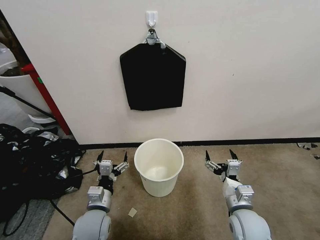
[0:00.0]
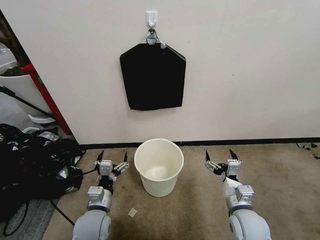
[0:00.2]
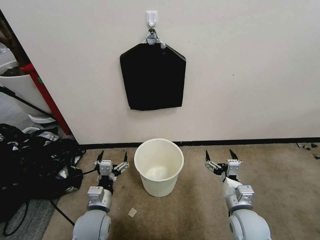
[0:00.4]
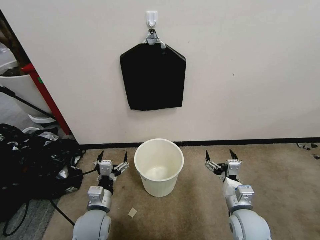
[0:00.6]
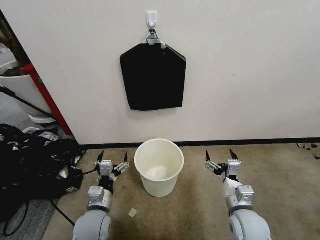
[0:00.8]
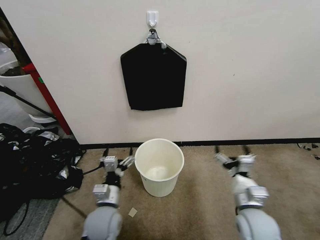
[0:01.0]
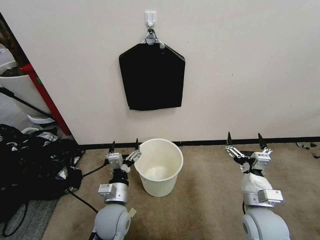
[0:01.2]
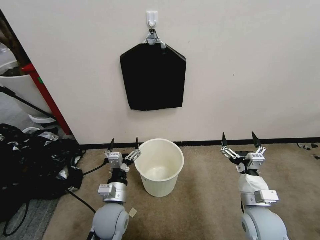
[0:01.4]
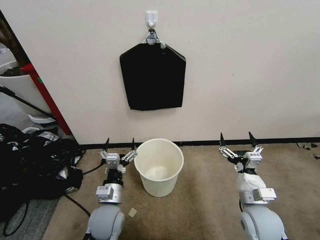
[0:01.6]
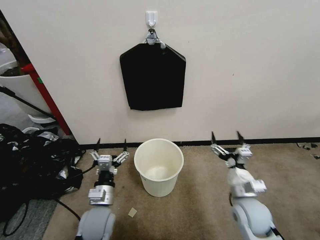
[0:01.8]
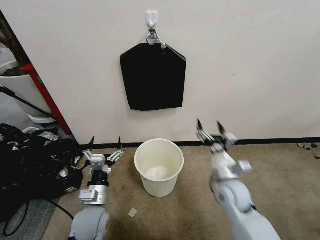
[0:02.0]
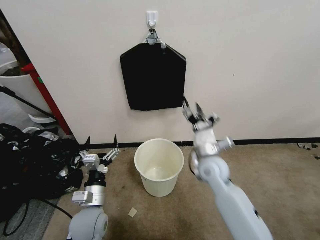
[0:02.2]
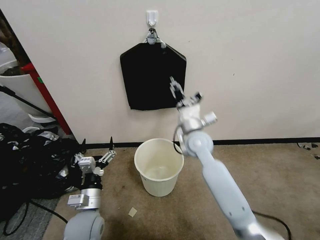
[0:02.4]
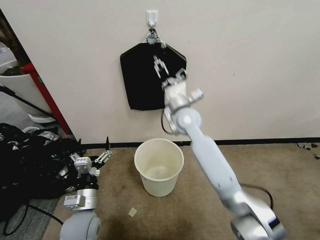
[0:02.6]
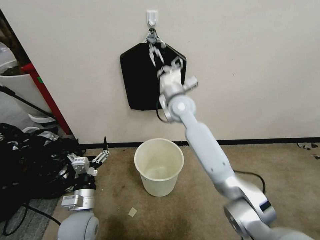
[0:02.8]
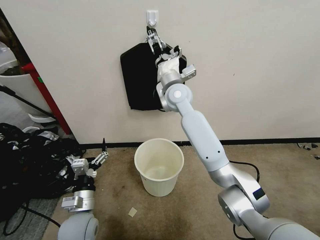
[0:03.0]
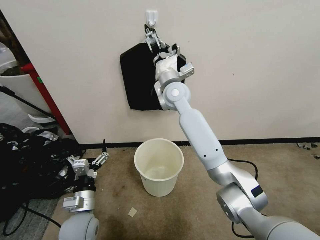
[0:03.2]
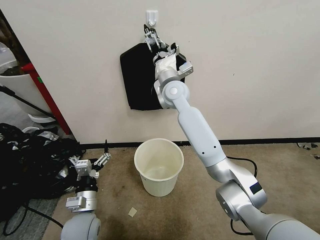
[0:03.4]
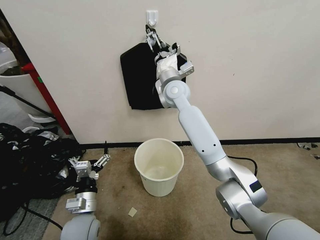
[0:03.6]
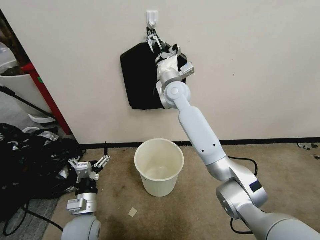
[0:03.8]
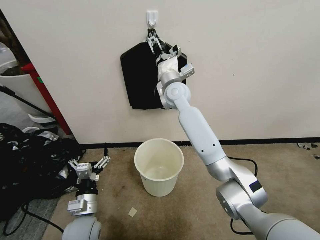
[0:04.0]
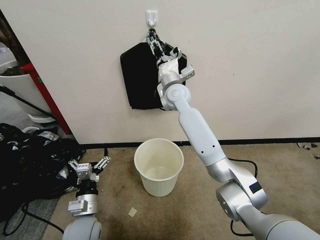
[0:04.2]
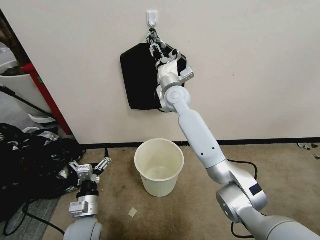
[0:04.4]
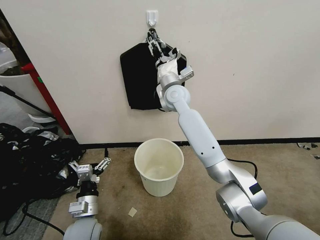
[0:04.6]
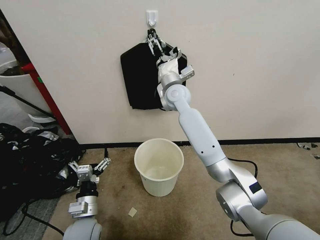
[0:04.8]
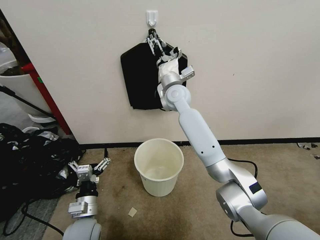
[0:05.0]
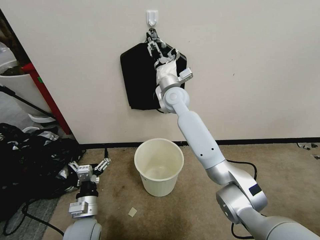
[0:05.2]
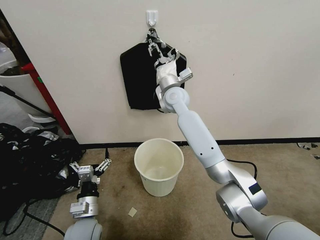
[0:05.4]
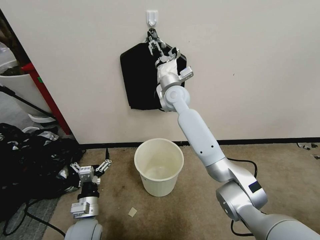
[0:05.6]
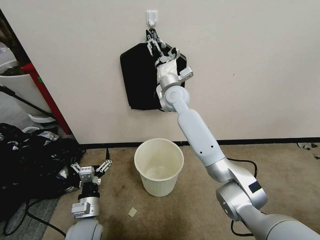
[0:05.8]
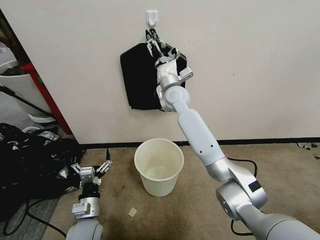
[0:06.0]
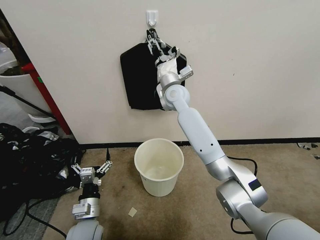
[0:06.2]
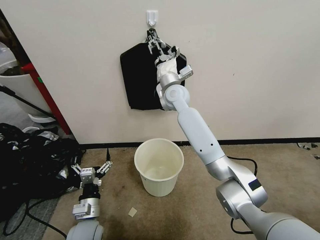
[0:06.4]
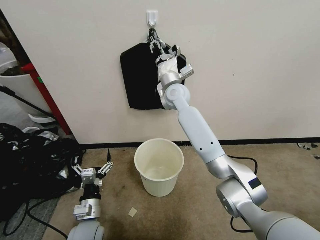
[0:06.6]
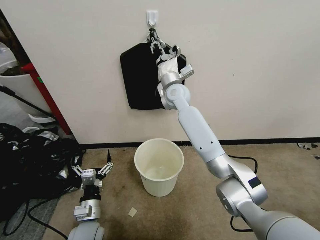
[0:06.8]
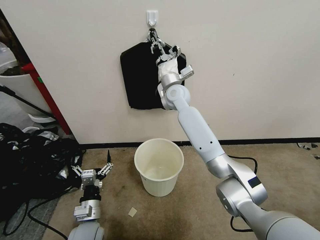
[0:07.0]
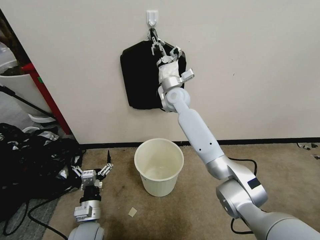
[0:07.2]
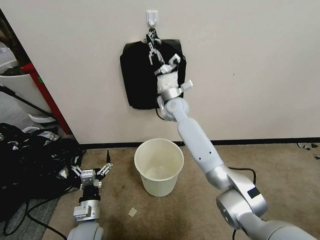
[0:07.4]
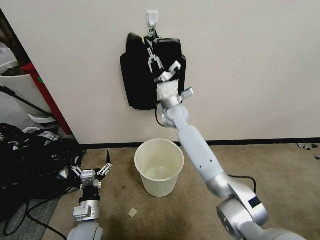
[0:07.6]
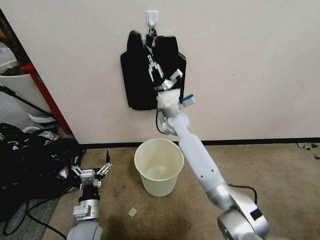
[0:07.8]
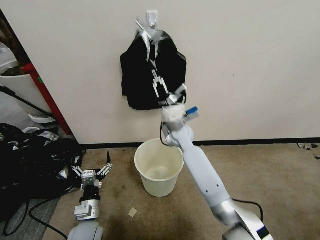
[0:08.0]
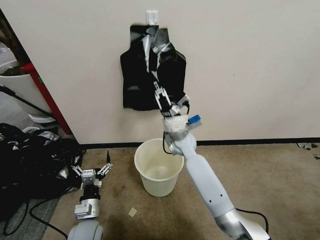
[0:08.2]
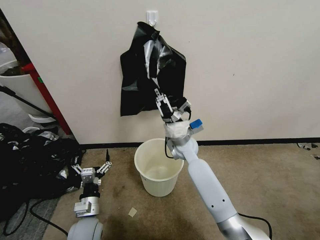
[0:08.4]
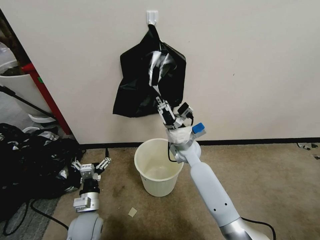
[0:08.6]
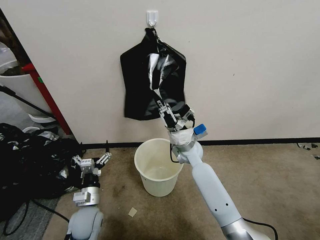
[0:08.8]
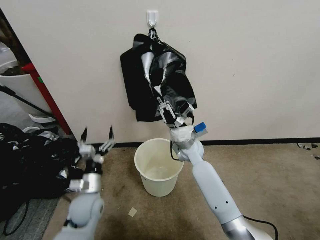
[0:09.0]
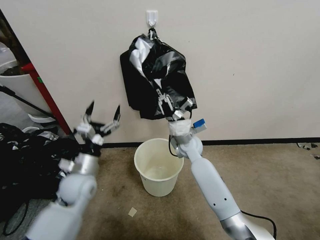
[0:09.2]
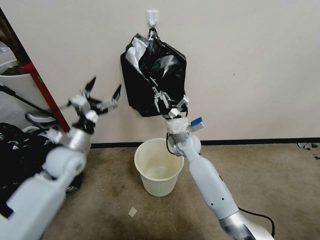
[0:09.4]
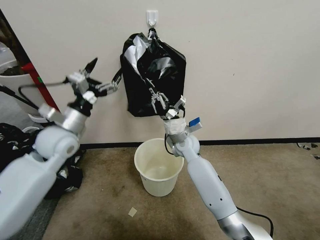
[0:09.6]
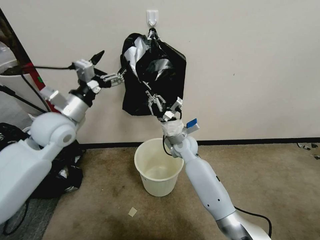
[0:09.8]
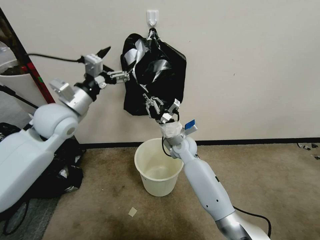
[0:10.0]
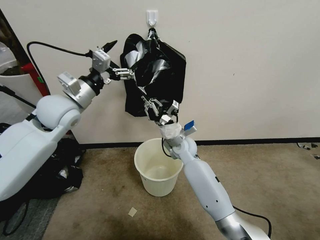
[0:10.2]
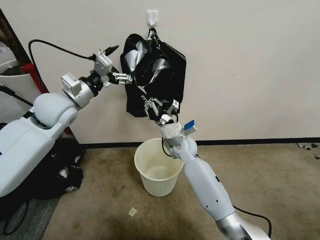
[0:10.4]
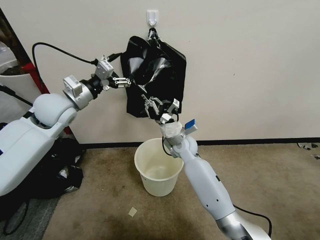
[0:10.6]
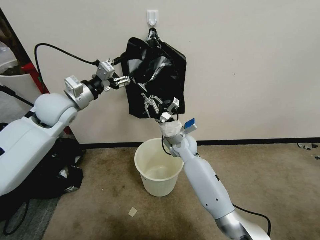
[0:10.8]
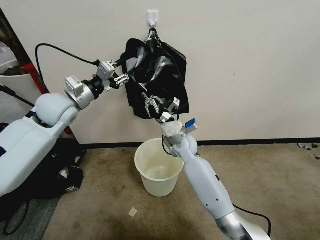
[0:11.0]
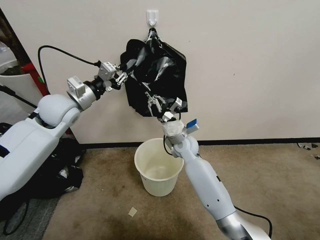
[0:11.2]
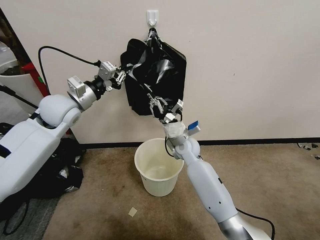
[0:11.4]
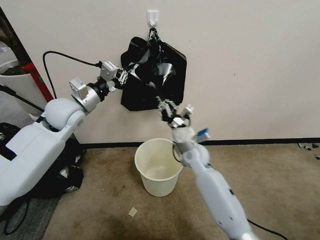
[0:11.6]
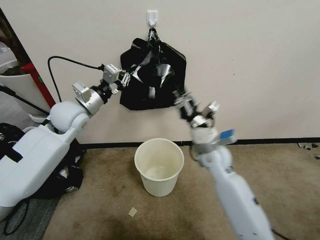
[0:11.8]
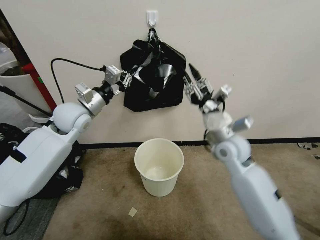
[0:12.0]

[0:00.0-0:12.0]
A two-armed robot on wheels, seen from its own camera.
Task of the whole recording: Place a trash bag onto the trash bin.
0:01.6 to 0:03.0: The left gripper moves to the left, about 5 cm. The right gripper is displaced forward, to the left and upward by approximately 40 cm.
0:03.0 to 0:04.4: The right gripper closes up.
0:04.4 to 0:06.0: The right gripper opens its fingers.
0:06.0 to 0:07.6: The right gripper shifts some 5 cm downward, and closes up.
0:07.6 to 0:09.0: The right gripper heads downward, backward and to the right, covering about 15 cm; the left gripper heads forward, covering roughly 5 cm.
0:09.0 to 0:10.4: The left gripper is displaced upward and forward by roughly 30 cm.
0:10.4 to 0:12.0: The left gripper changes place by about 5 cm, and closes. Meanwhile the right gripper moves to the right, upward and backward, some 20 cm, and opens up.

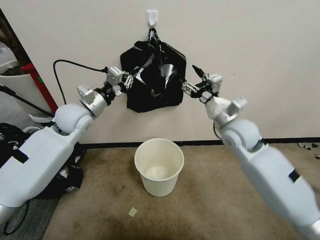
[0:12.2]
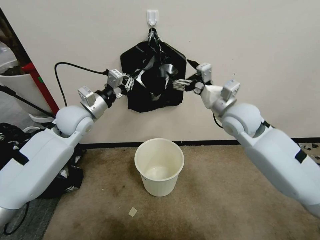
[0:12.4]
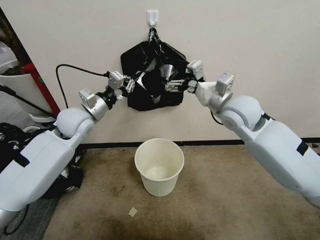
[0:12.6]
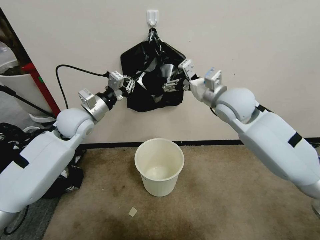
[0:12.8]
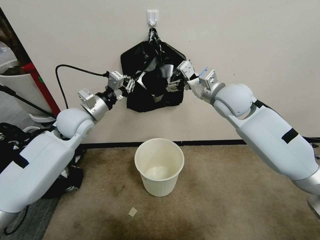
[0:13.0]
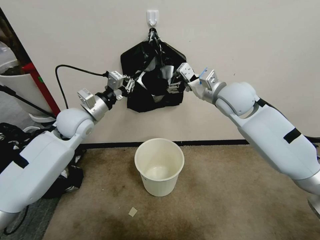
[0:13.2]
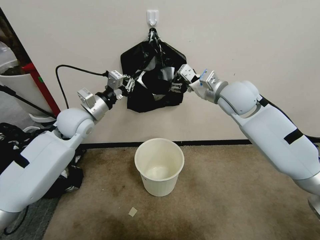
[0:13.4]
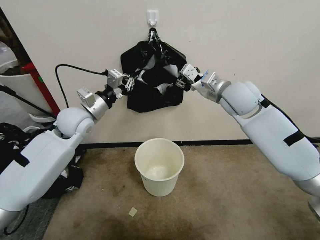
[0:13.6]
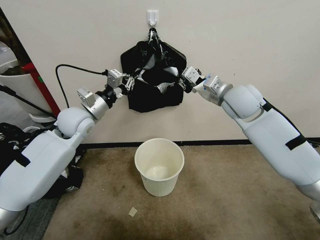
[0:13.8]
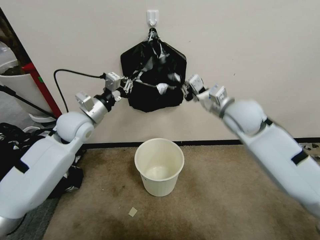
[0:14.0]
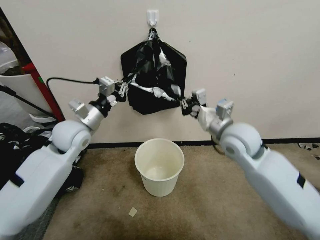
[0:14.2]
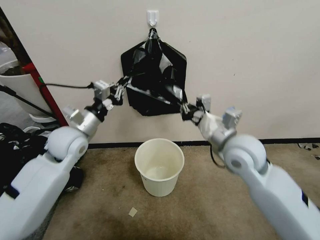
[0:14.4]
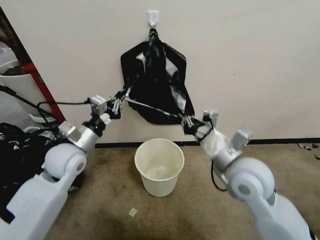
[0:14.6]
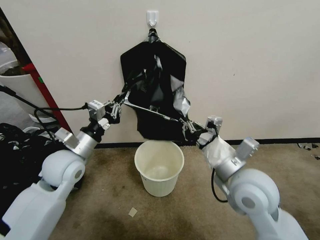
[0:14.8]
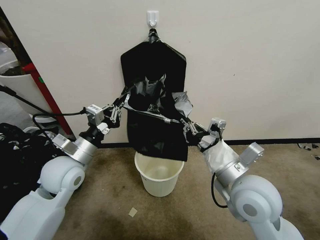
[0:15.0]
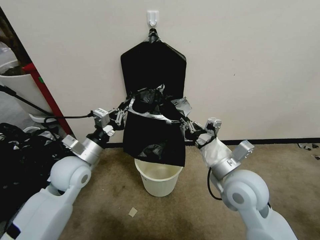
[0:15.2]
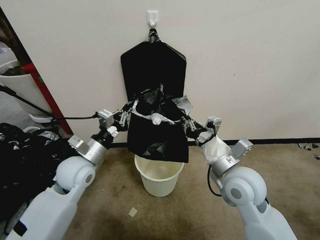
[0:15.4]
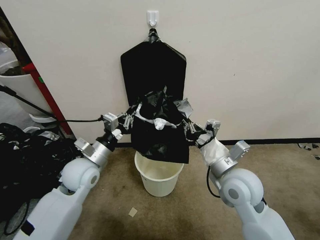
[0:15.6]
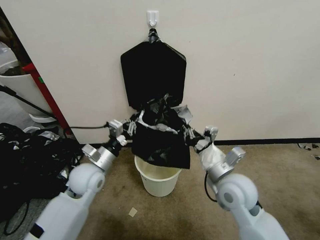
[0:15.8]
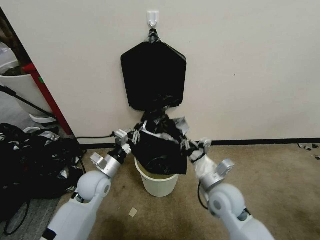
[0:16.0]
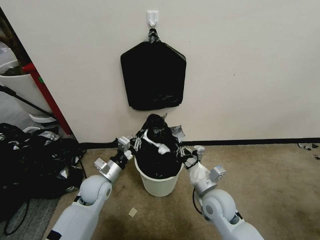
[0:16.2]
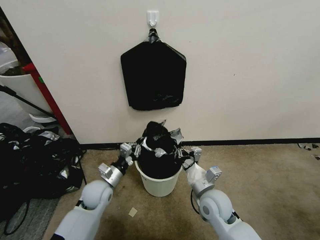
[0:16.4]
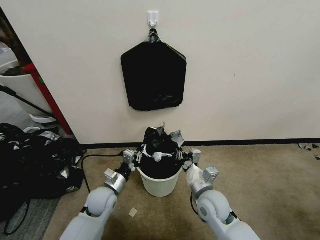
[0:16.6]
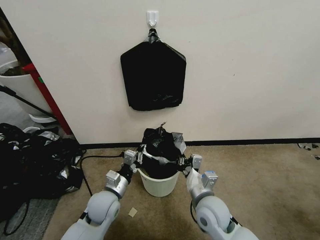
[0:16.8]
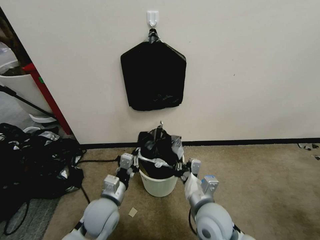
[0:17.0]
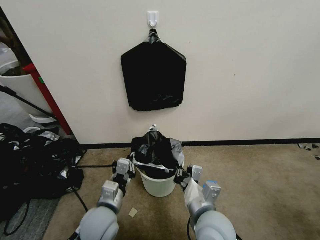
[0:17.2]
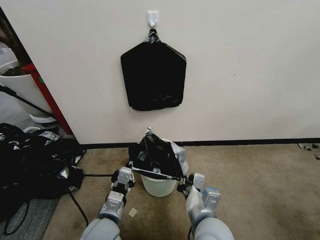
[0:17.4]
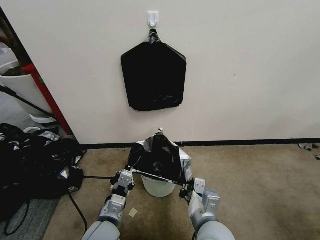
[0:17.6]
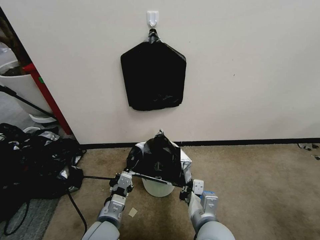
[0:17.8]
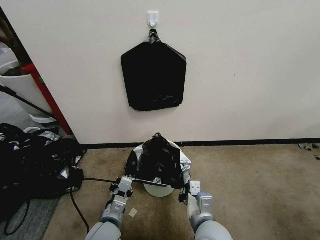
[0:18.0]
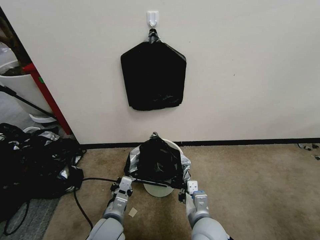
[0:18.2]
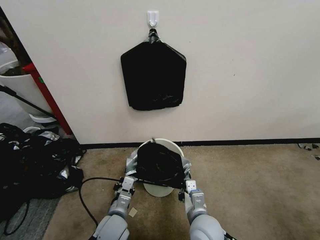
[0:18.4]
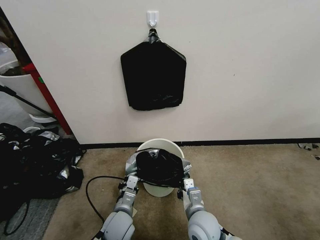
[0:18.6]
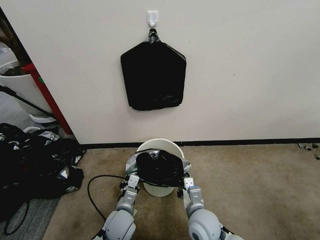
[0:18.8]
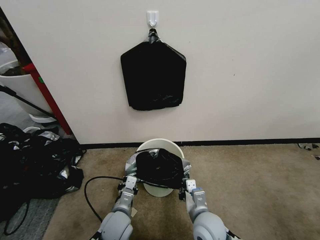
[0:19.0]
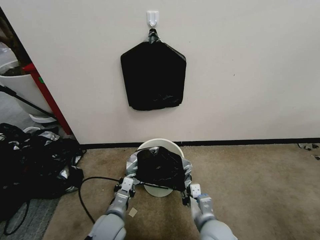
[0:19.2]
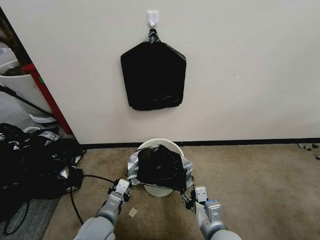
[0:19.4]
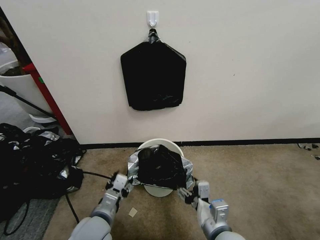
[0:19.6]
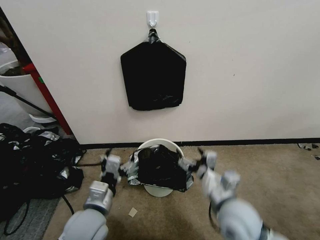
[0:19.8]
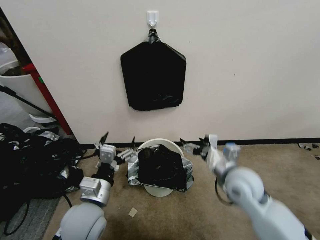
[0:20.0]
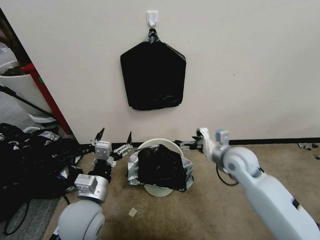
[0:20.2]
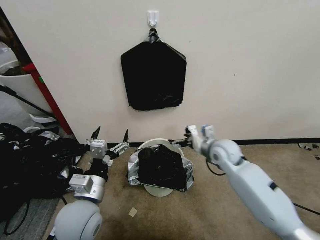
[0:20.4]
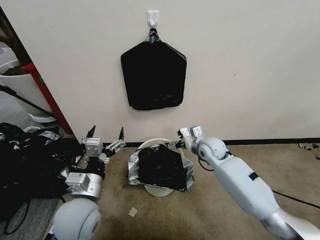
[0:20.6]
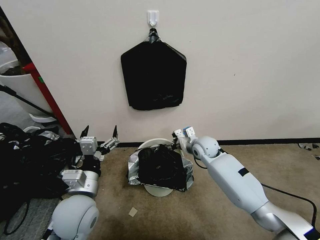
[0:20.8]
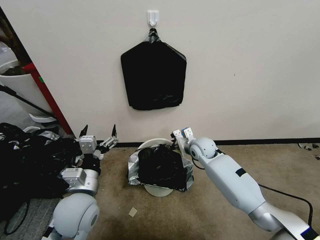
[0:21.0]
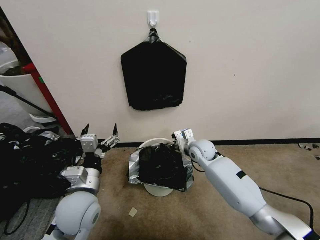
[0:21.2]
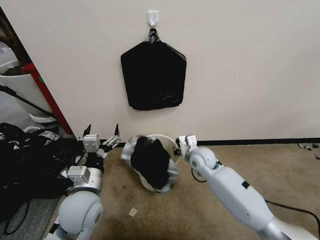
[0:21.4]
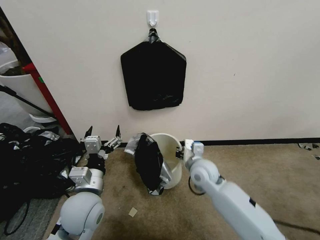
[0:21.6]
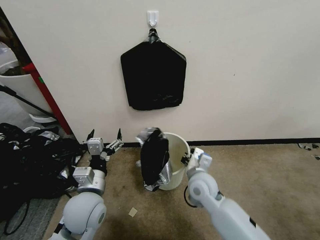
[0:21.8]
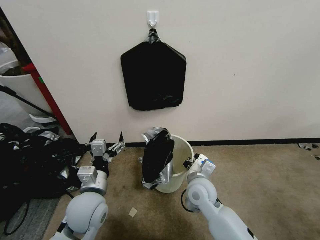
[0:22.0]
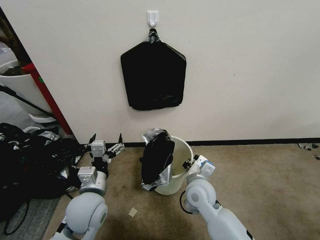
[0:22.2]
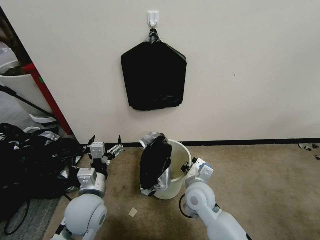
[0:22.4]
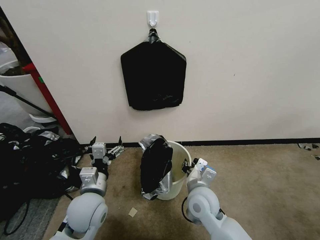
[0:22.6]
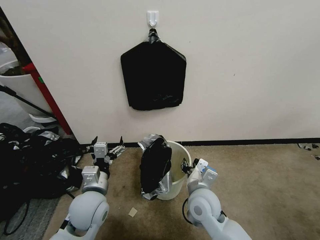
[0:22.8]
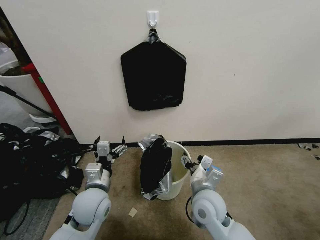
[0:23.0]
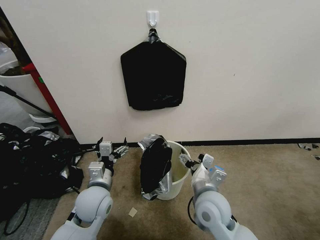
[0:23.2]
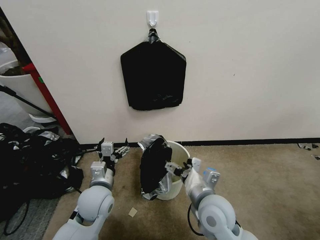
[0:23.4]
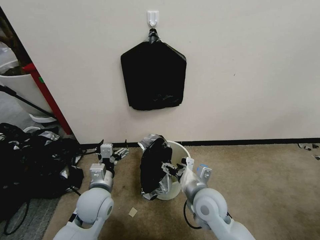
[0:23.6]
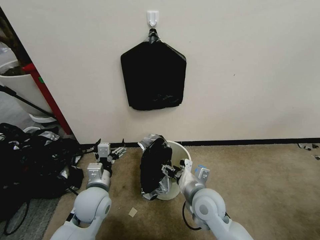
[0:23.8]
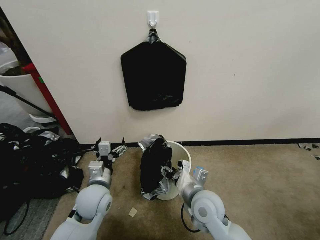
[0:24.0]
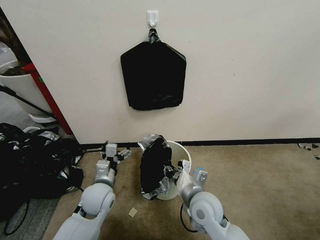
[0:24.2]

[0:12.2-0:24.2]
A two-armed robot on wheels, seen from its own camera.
Task of the whole recording: Place a trash bag onto the trash bin.
0:12.2 to 0:13.8: The right gripper is displaced upward by roughly 10 cm, and closes.
0:13.8 to 0:15.2: The right gripper shifts about 25 cm backward and downward. The left gripper shifts some 15 cm backward and downward.
0:15.2 to 0:16.6: Both grippers move downward, about 15 cm.
0:16.6 to 0:18.2: Both grippers move backward, some 10 cm.
0:18.2 to 0:19.8: The left gripper shifts roughly 10 cm upward, and opens its fingers, while the right gripper heads upward and to the right, covering some 10 cm, and opens.
0:19.8 to 0:21.2: The right gripper moves forward, some 25 cm, and closes its fingers. Meanwhile the left gripper ends up roughly 5 cm from where it was.
0:21.2 to 0:22.6: The right gripper shifts approximately 20 cm backward.
0:22.6 to 0:24.2: The right gripper opens, then closes again, while the left gripper moves downward, some 5 cm.
